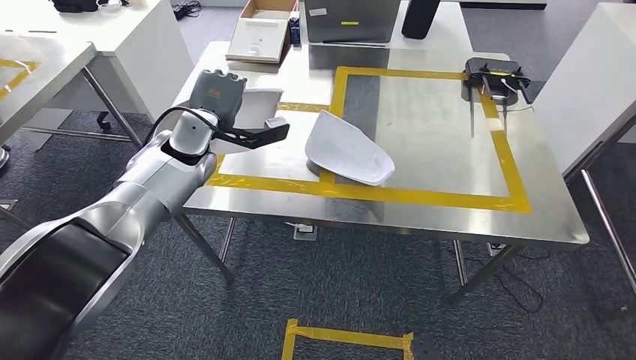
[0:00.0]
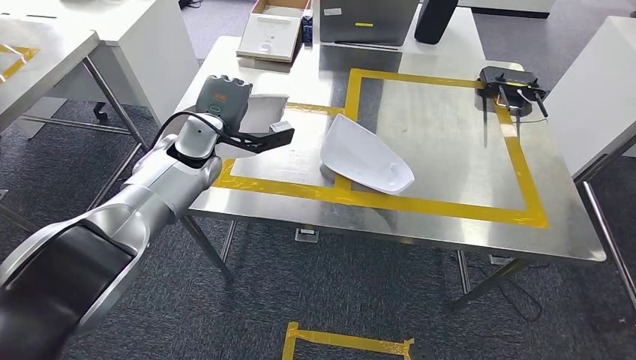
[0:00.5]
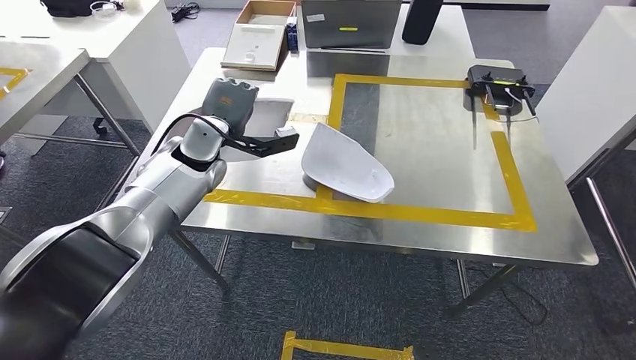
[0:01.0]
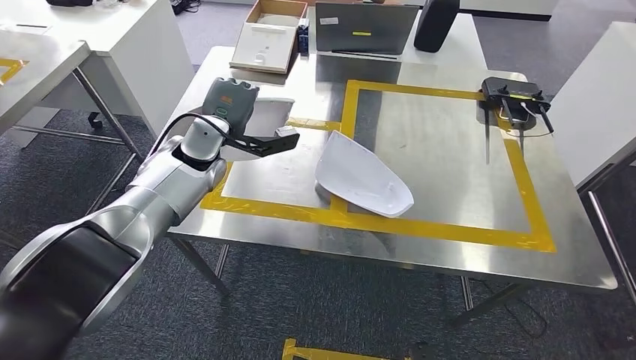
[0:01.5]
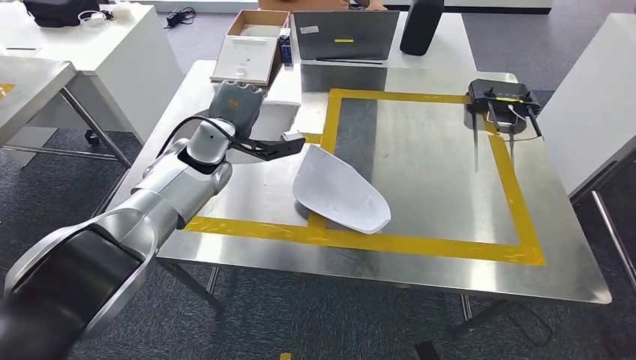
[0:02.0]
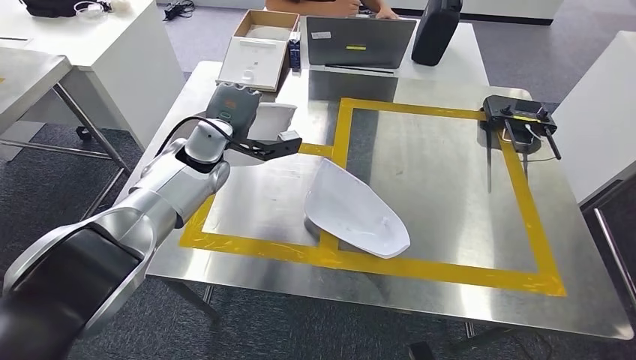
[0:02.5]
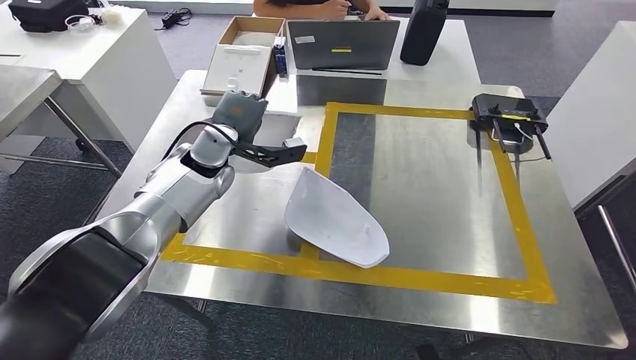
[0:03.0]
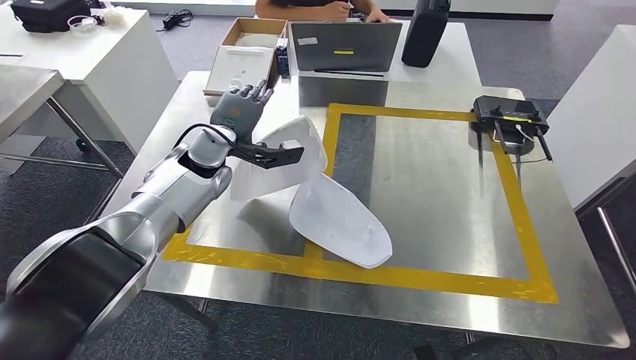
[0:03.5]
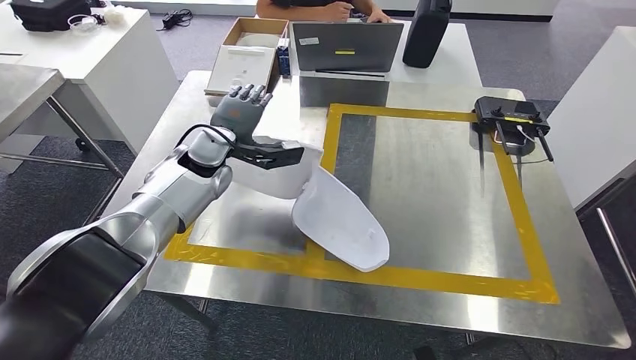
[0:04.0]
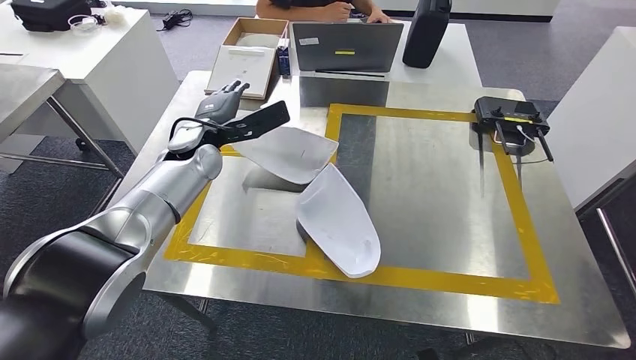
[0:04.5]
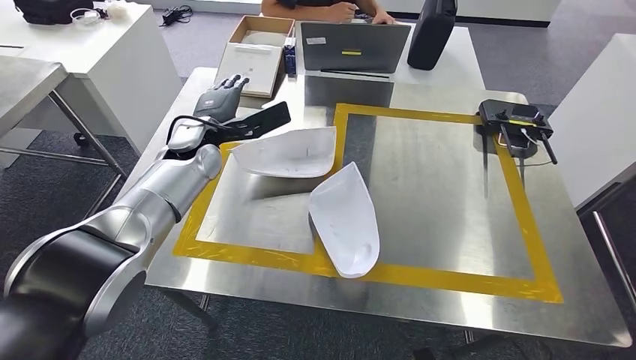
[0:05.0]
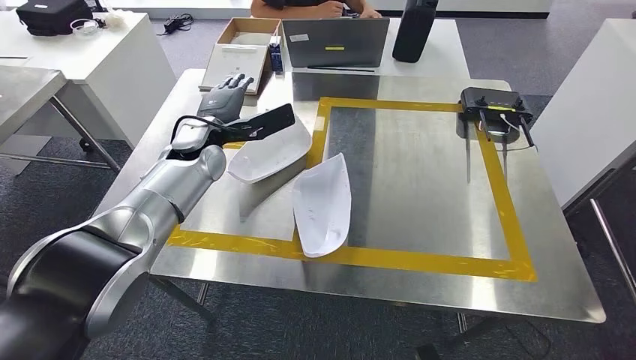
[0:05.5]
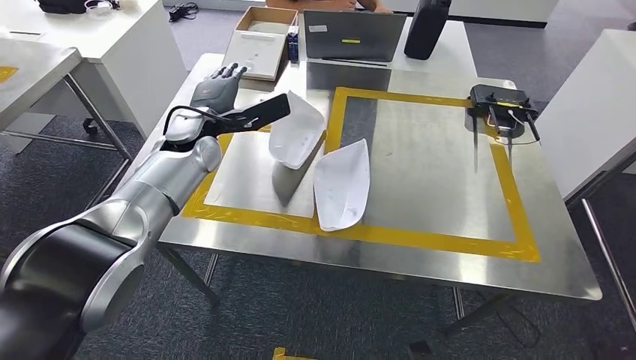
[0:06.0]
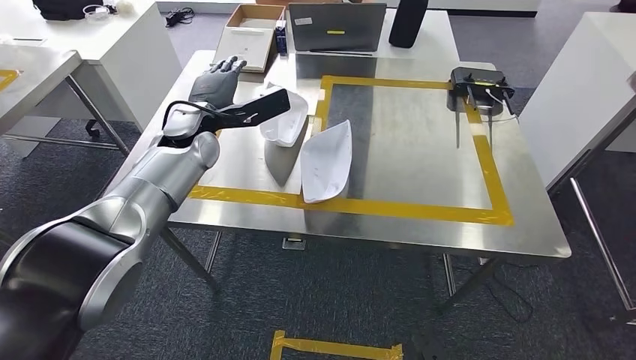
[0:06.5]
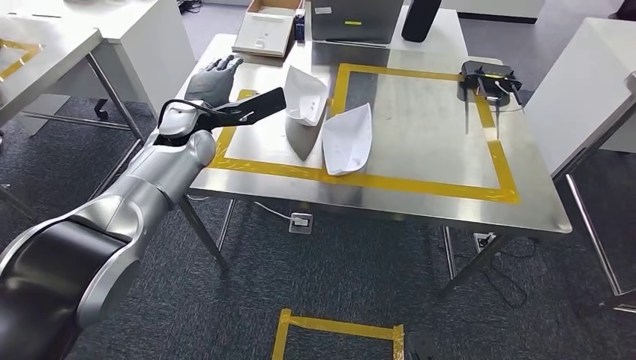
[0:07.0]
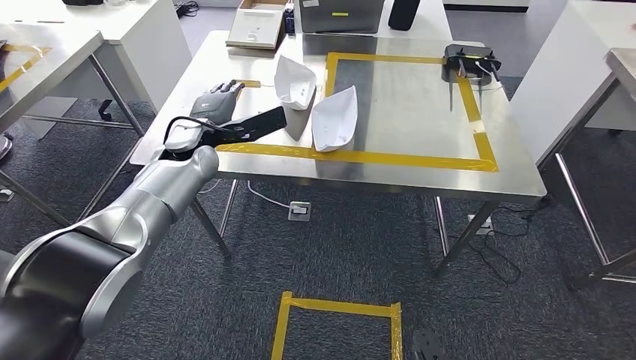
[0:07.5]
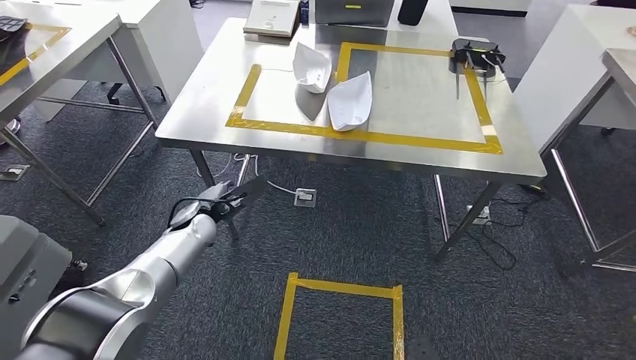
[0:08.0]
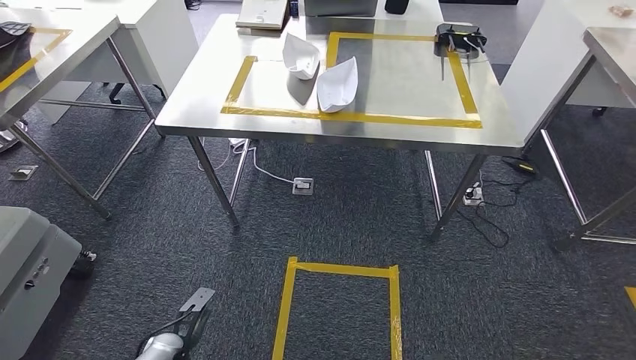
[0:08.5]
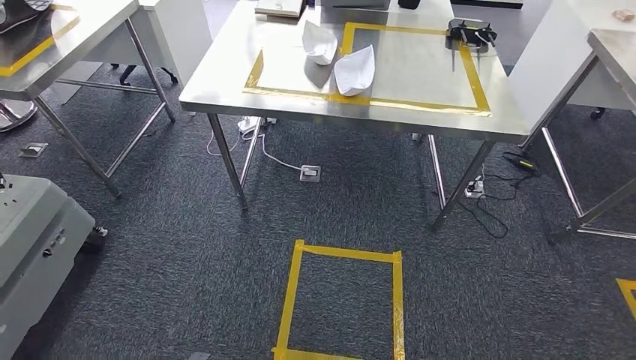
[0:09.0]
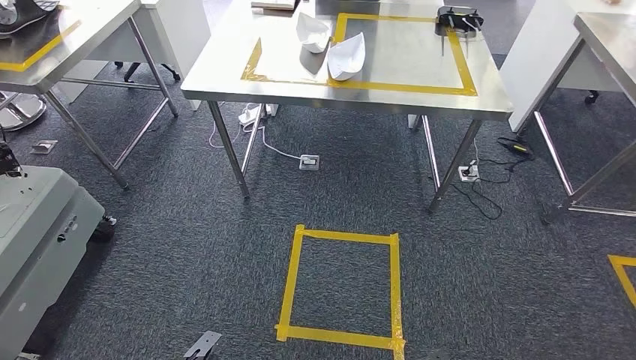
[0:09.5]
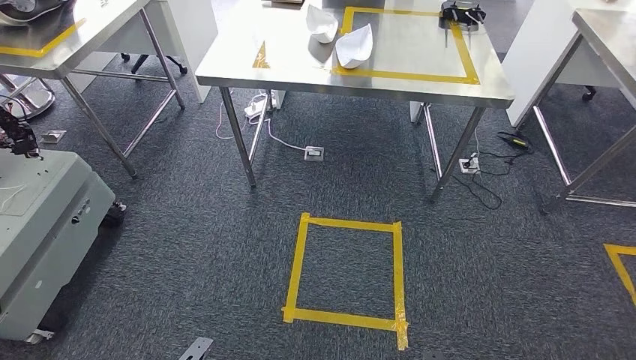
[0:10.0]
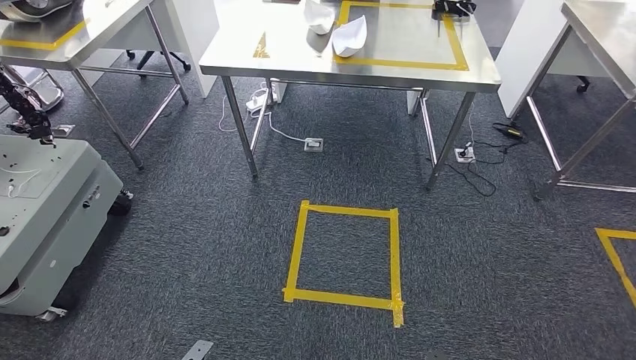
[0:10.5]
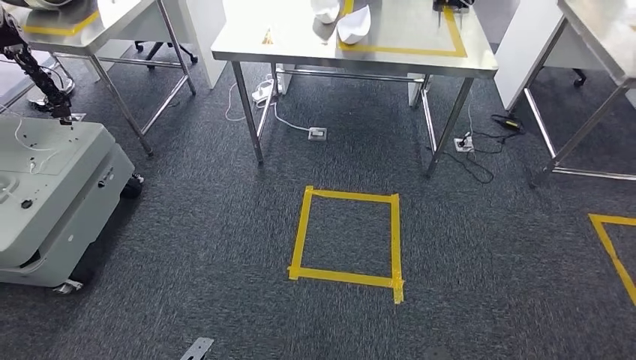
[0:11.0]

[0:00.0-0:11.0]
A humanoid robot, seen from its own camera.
Step, 0:00.0 to 0:04.5: Insert the small component into the corresponding slot on the workbench.
Step, 0:05.0 to 0:11.0: Return to the initial position at the workbench.

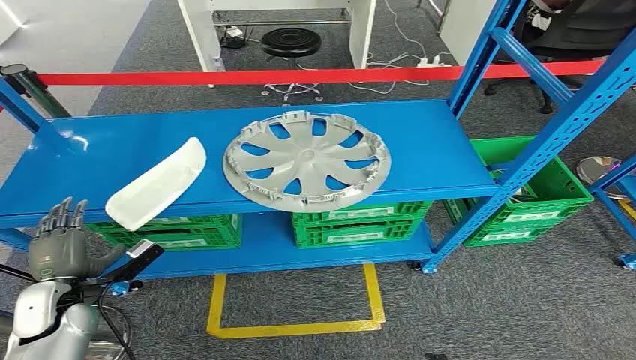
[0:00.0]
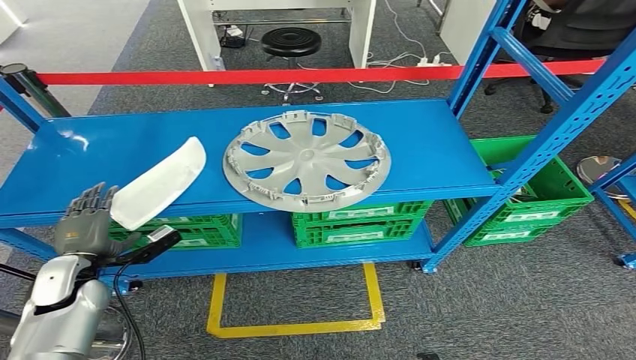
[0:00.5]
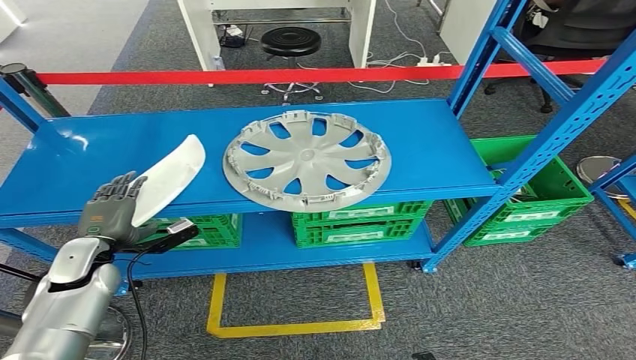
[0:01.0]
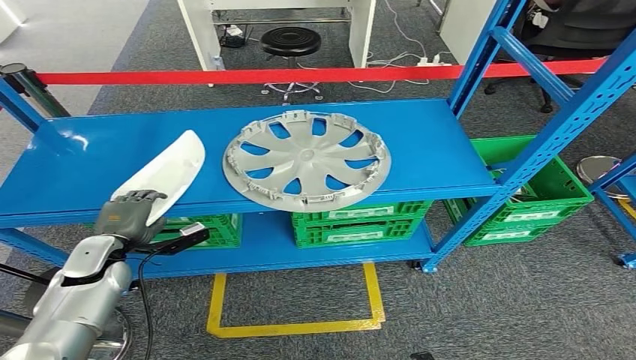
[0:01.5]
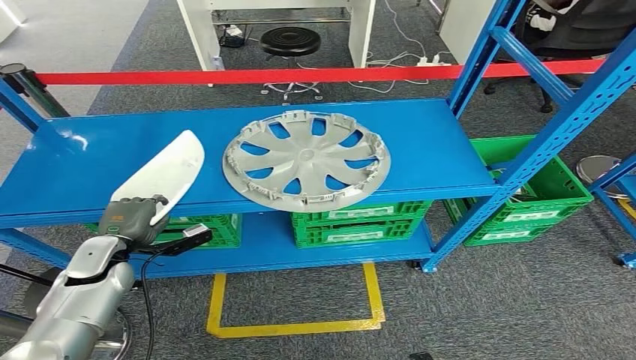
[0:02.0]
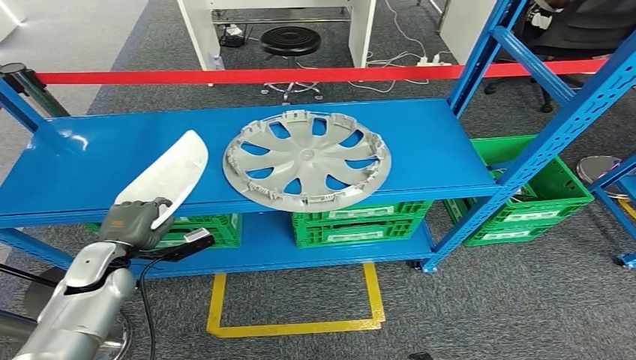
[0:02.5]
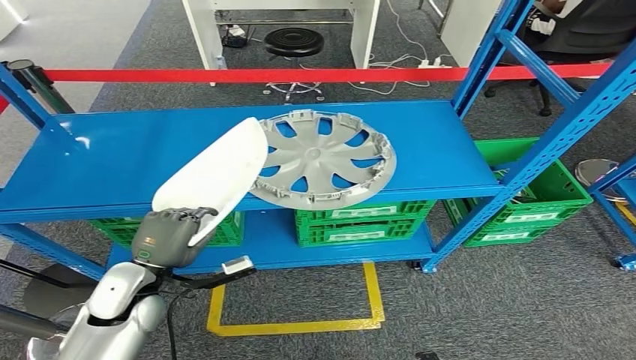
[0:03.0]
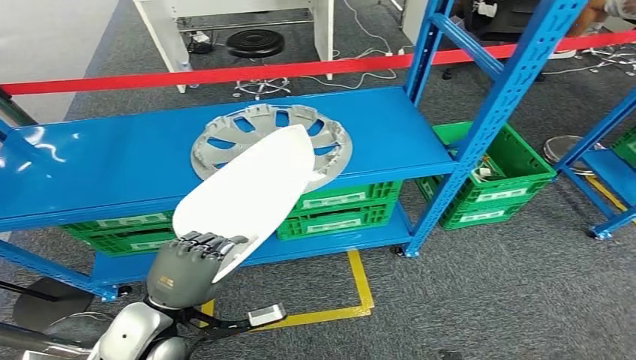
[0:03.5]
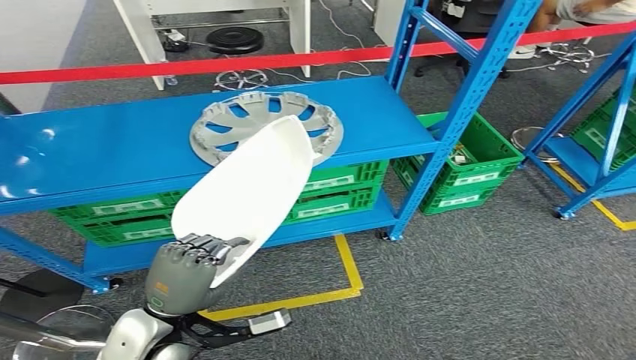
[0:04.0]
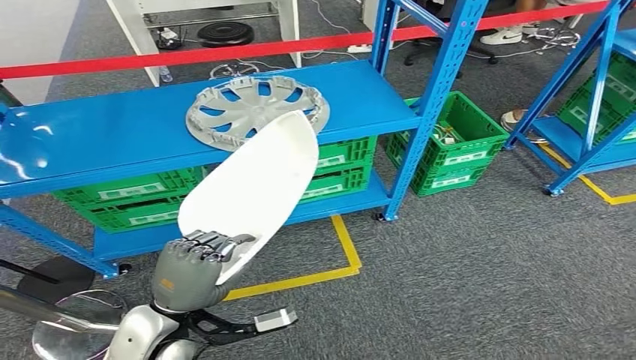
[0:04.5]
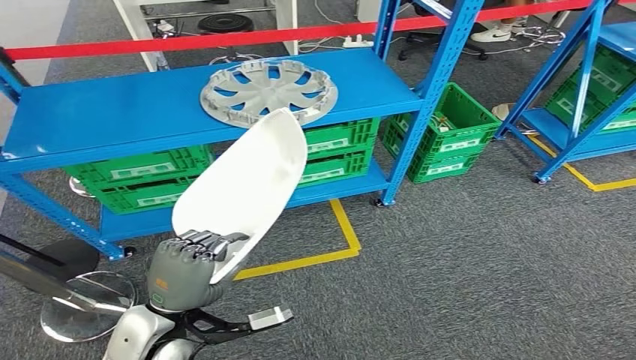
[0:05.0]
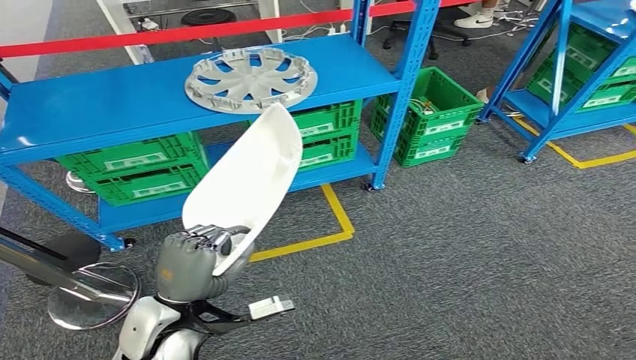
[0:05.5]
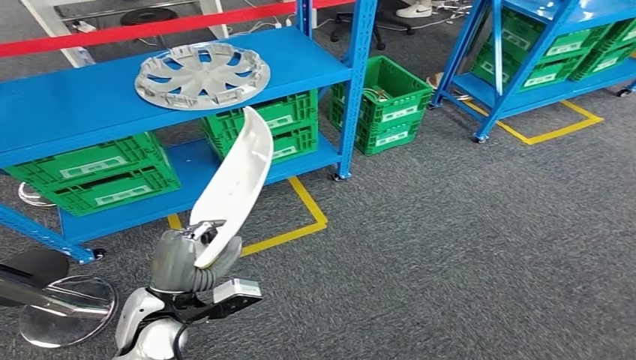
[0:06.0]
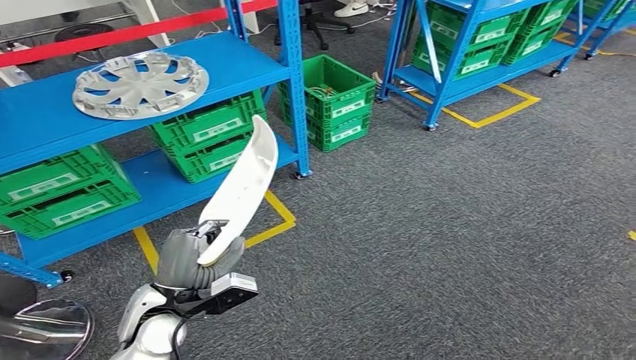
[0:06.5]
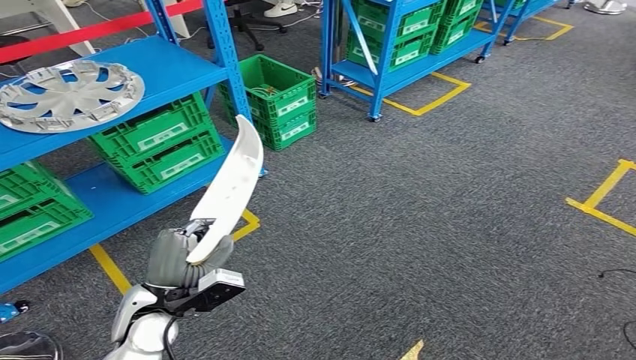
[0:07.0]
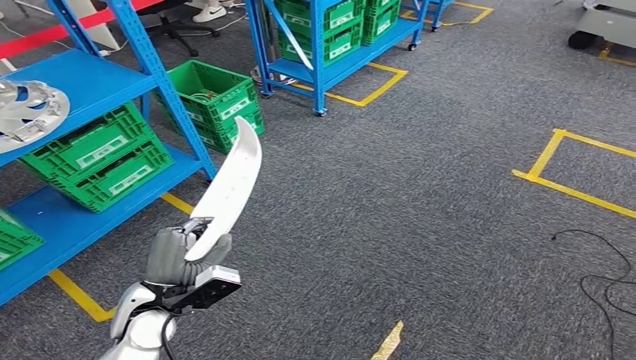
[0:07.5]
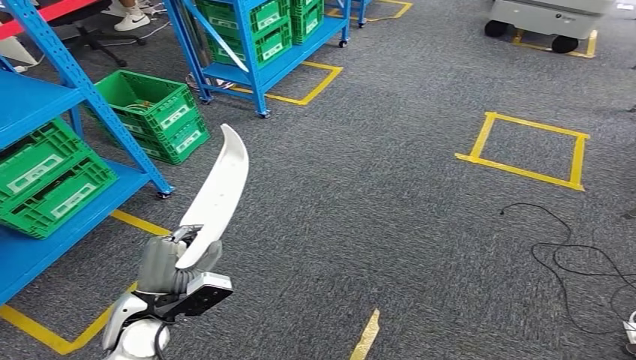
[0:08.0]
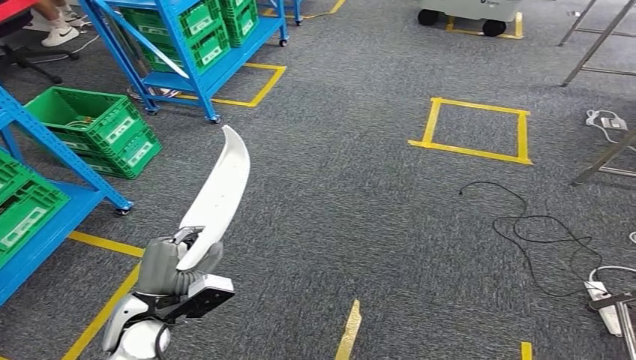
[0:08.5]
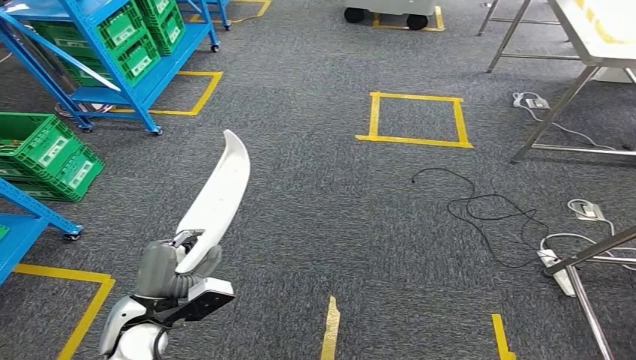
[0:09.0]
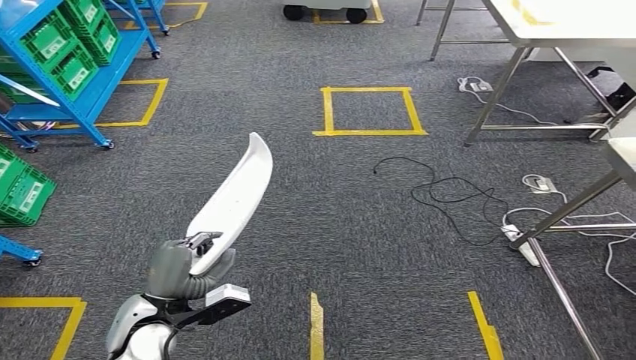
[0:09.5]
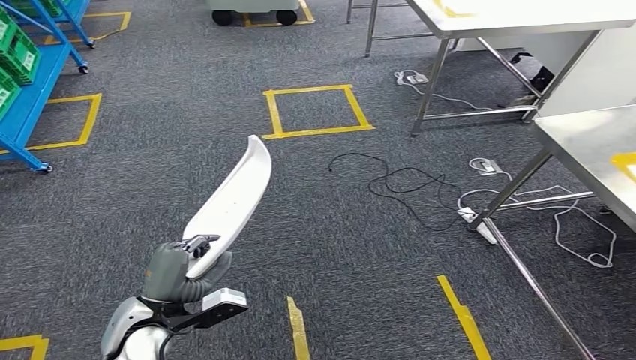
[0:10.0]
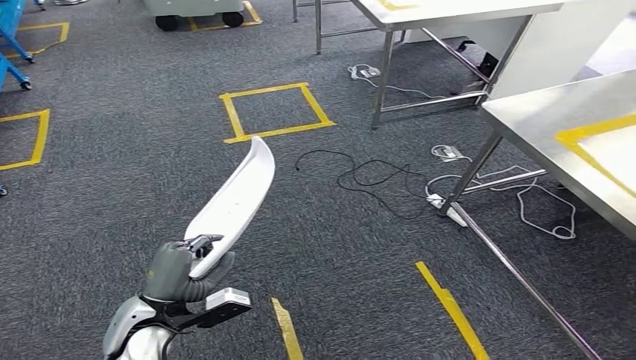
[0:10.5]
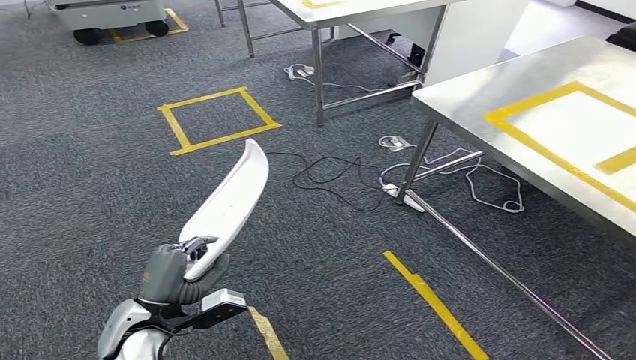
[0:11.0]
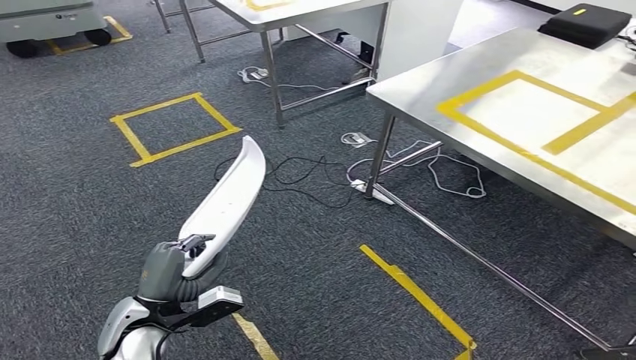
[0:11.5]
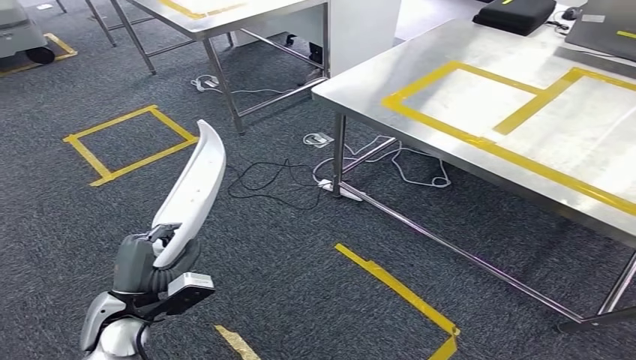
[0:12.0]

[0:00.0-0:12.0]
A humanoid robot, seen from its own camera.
Step, 0:00.0 to 0:04.0: Pick up the small component from the shelf.
